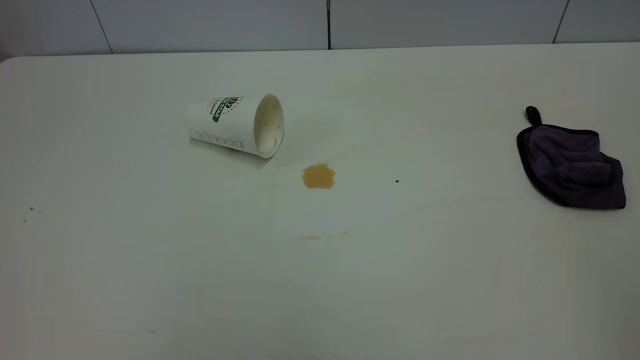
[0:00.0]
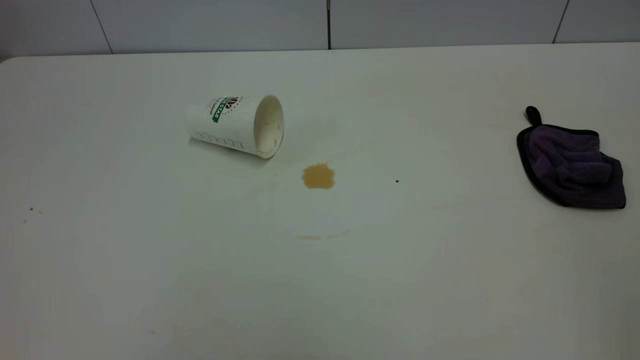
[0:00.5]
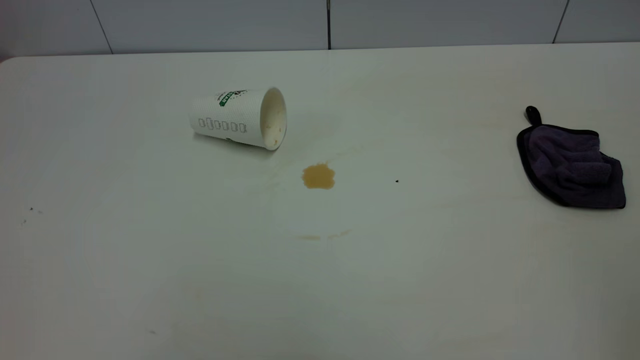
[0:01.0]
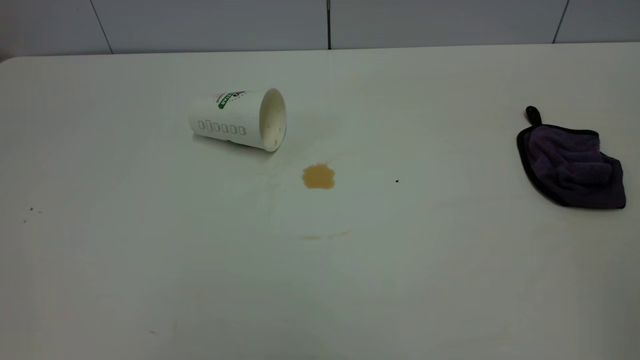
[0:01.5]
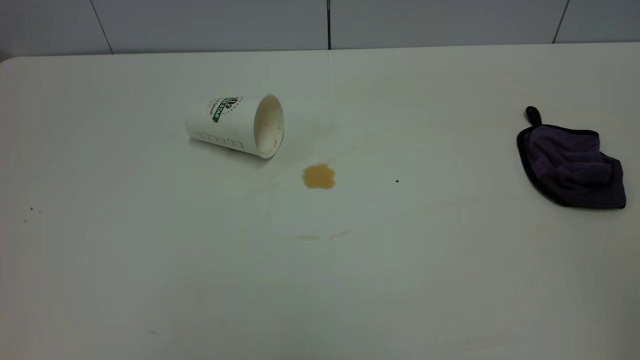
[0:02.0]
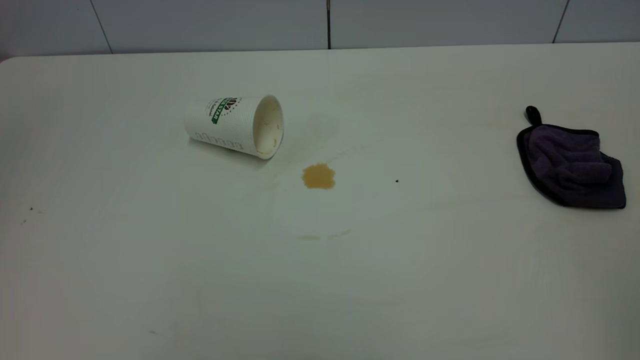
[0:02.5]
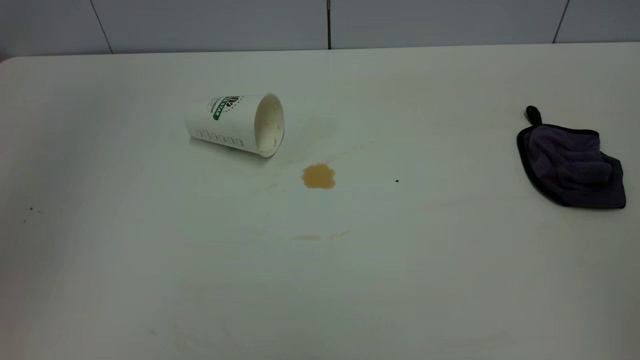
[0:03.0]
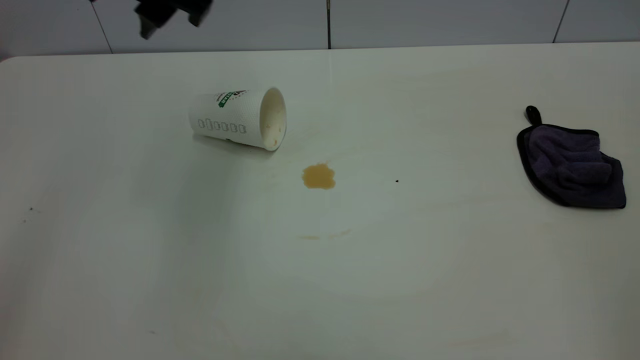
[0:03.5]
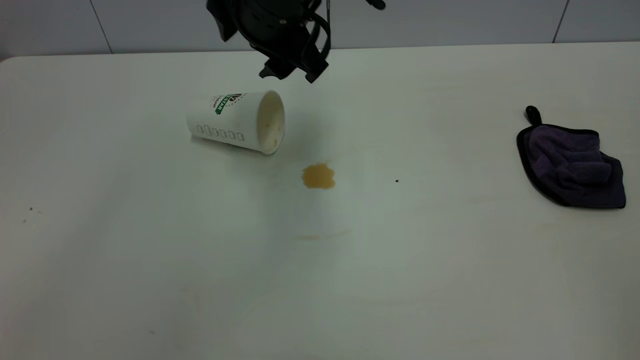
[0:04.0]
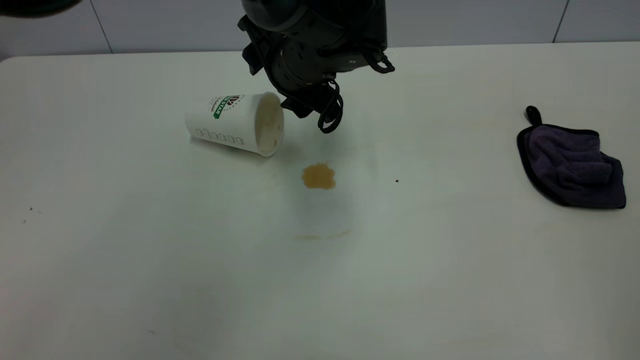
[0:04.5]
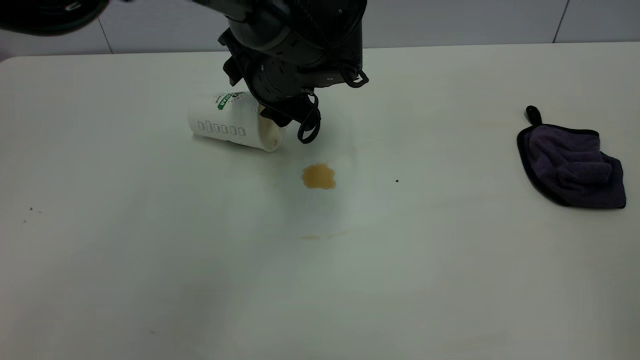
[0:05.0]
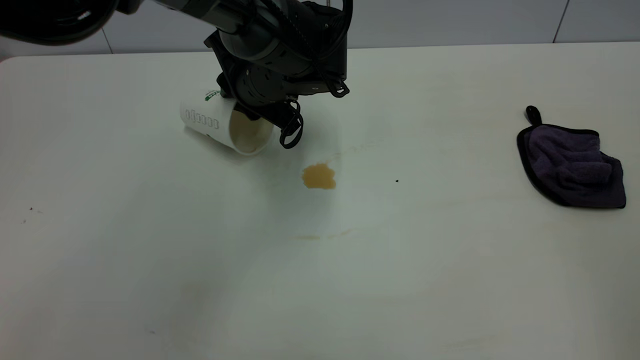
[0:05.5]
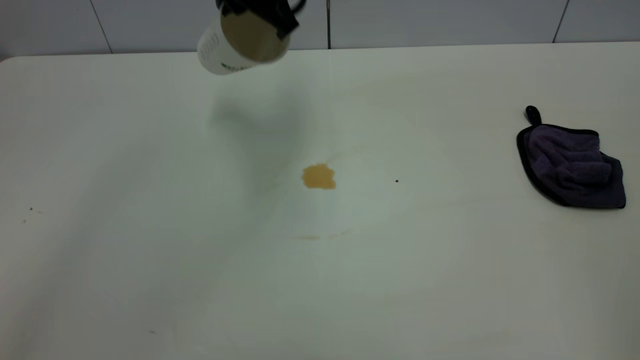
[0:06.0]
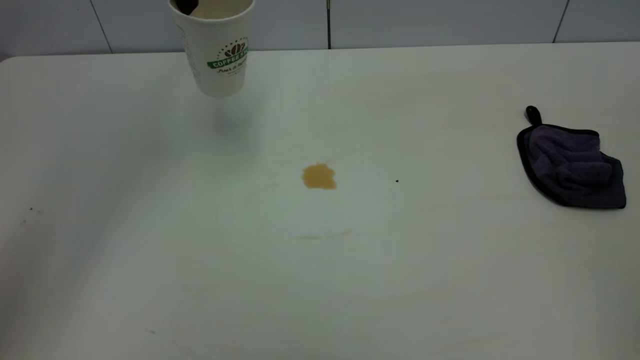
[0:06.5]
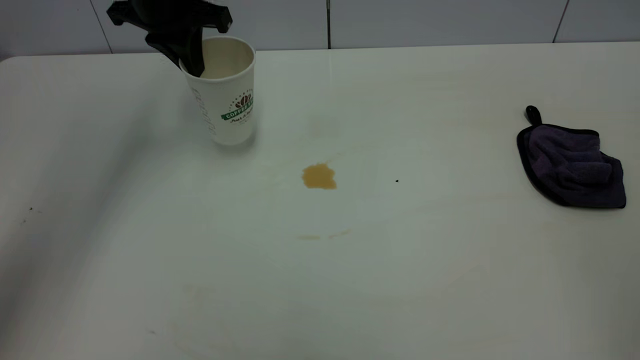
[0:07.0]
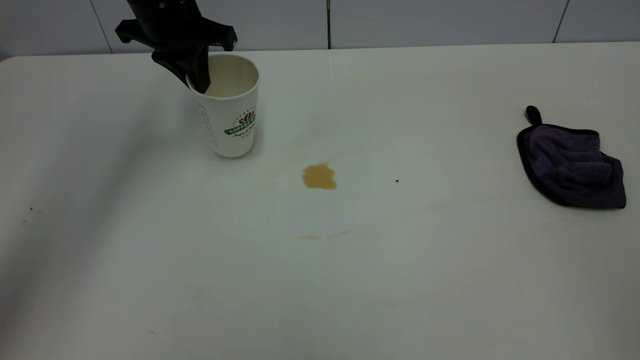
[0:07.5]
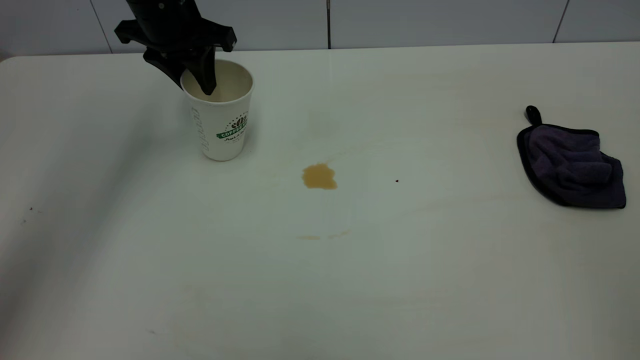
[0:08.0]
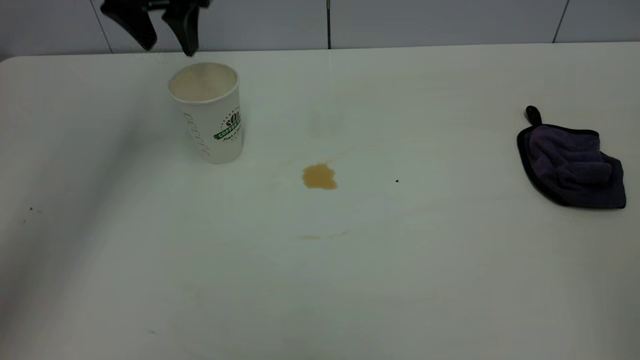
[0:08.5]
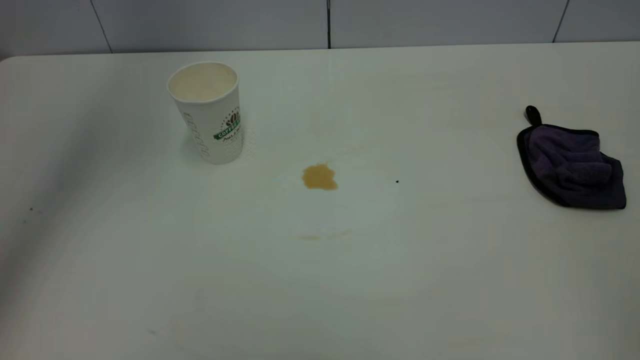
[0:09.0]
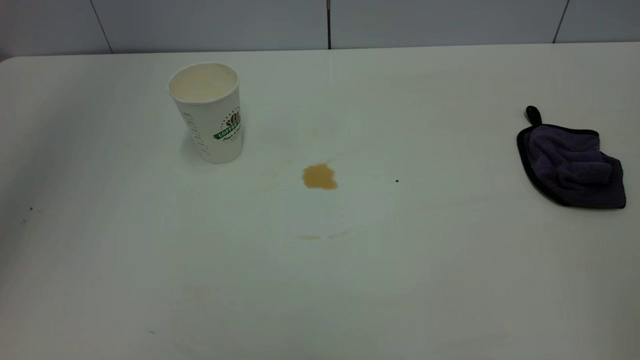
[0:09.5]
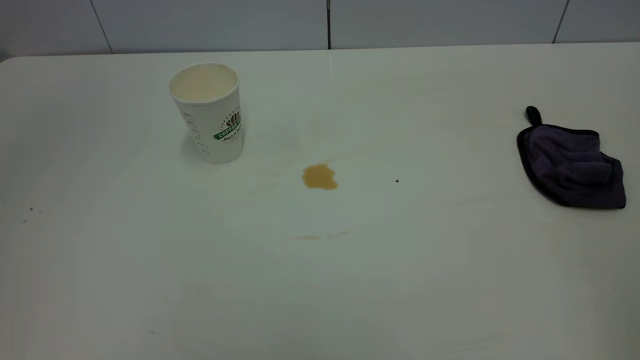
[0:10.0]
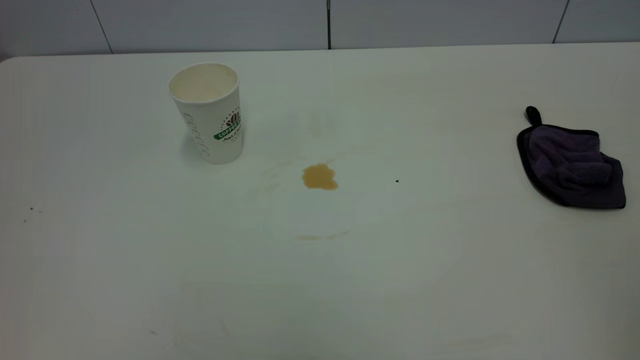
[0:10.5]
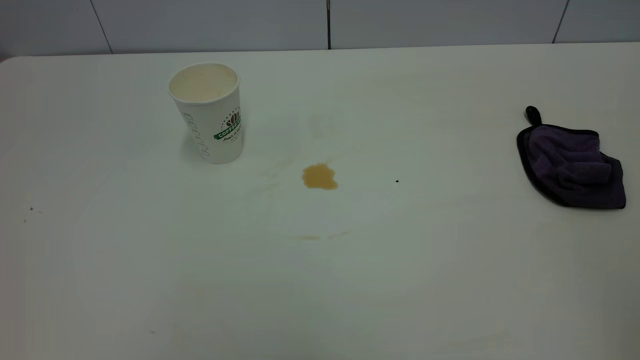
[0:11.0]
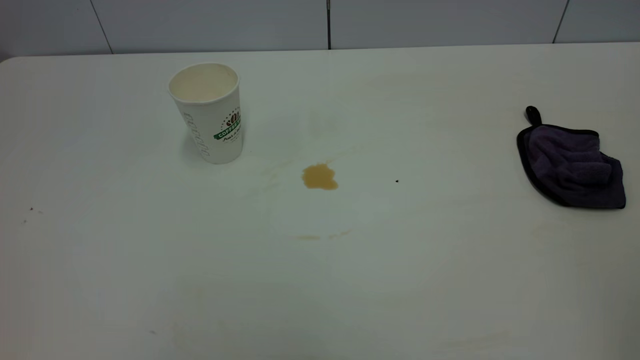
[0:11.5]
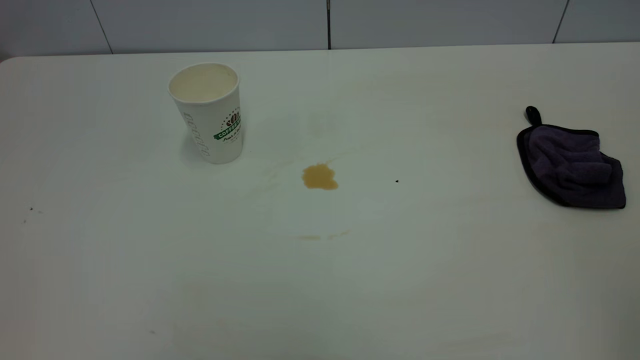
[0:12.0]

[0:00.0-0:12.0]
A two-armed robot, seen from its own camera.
Task of the whole recording: the left gripper pick up the fallen cup and place it upright, the right gripper grasp the purple rag and wipe the tea stain on the table, the right gripper put the purple rag back in its original position.
Step, 0:00.0 to 0:08.0: Stand the paper cup upright.
0:02.0 to 0:04.0: The left gripper moves forward, to the right and downward, approximately 50 cm, and opens up.
0:04.0 to 0:06.0: The left gripper travels downward and back again, roughly 10 cm each way, and closes.
0:06.0 to 0:08.0: The left gripper travels to the left and downward by some 15 cm, and opens its fingers.
0:08.0 to 0:10.0: The left gripper travels backward and upward by some 50 cm, and opens.

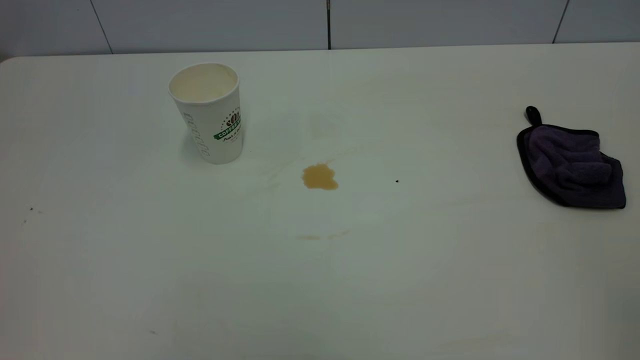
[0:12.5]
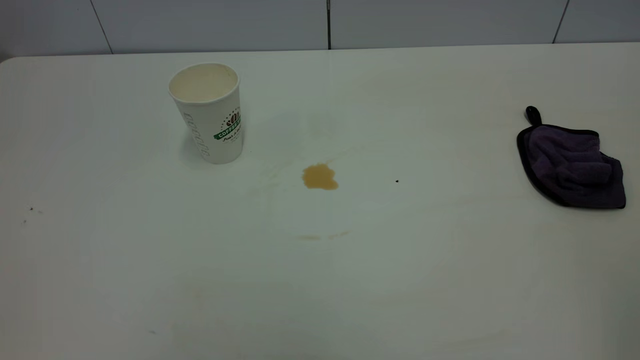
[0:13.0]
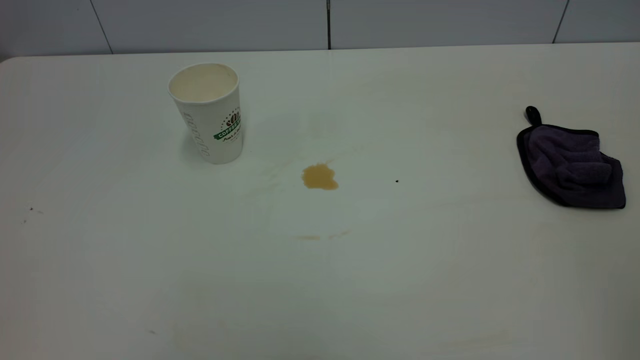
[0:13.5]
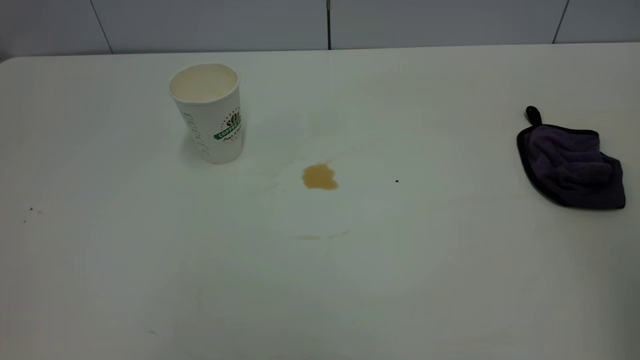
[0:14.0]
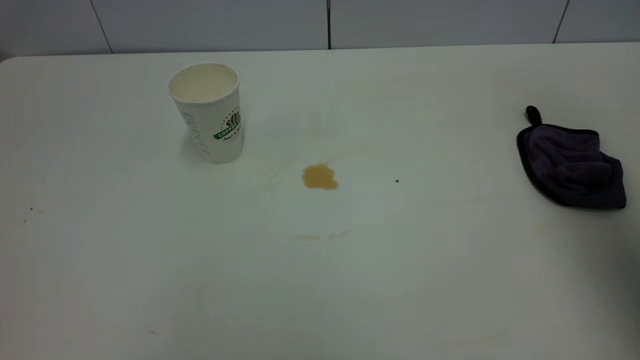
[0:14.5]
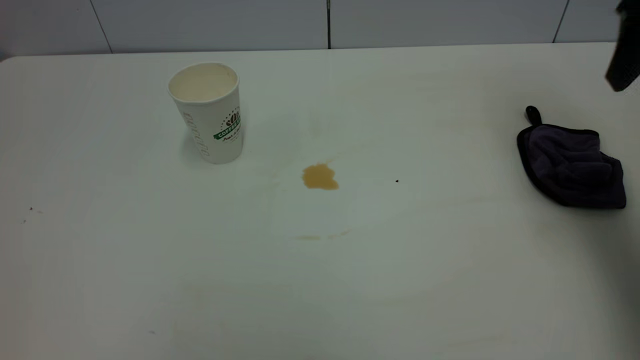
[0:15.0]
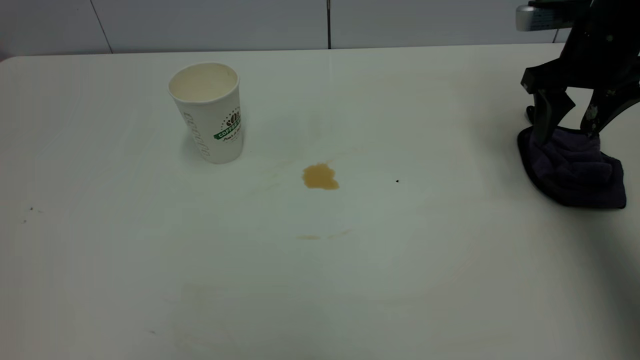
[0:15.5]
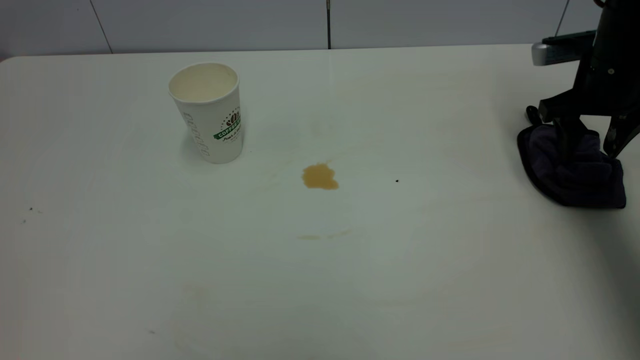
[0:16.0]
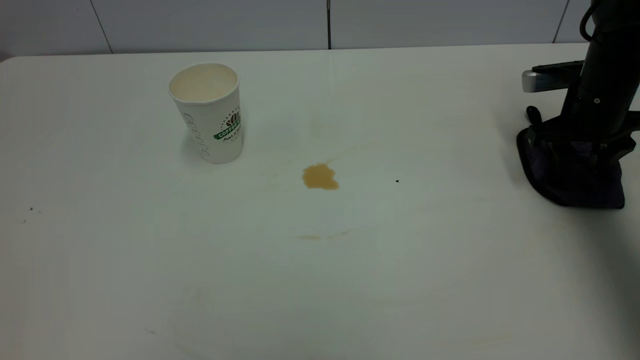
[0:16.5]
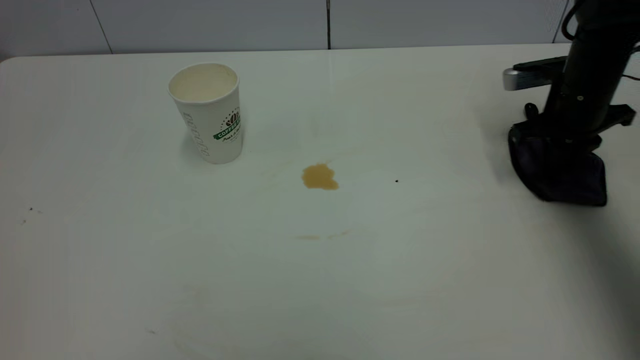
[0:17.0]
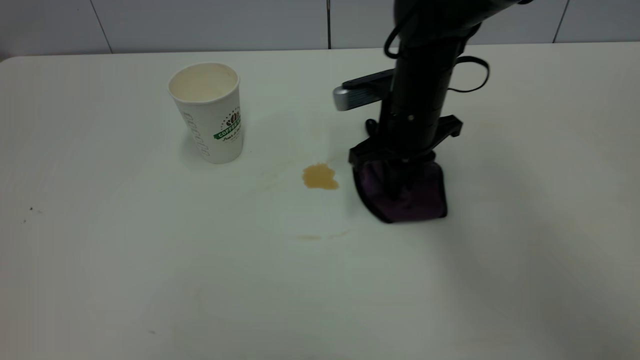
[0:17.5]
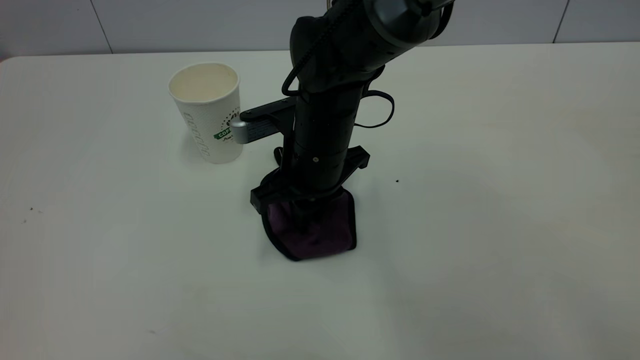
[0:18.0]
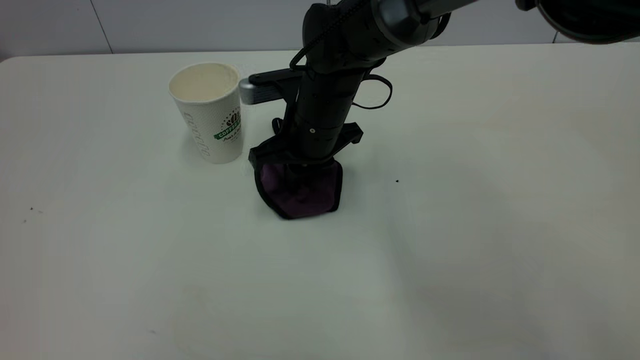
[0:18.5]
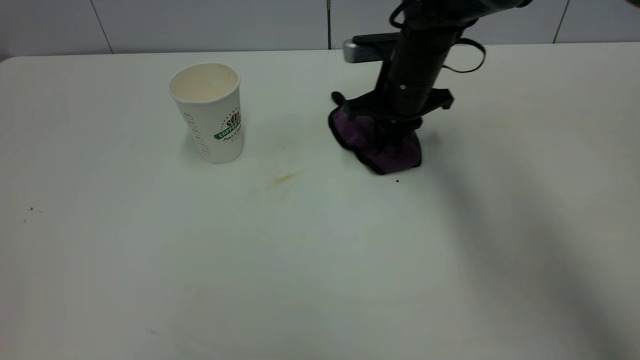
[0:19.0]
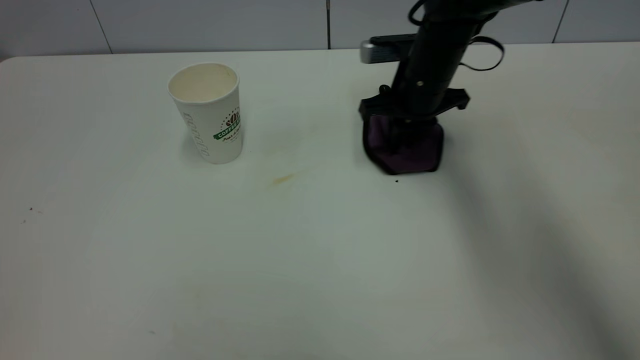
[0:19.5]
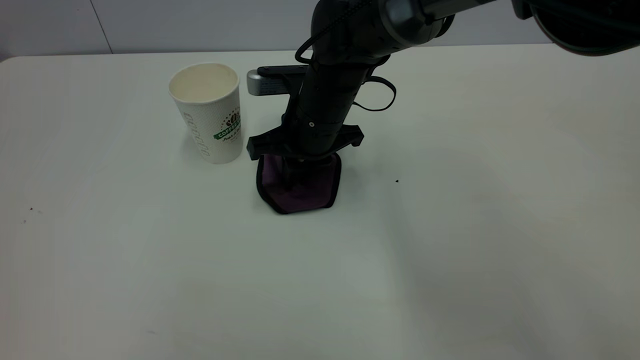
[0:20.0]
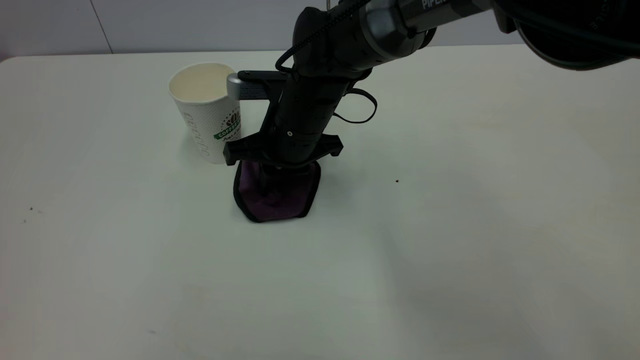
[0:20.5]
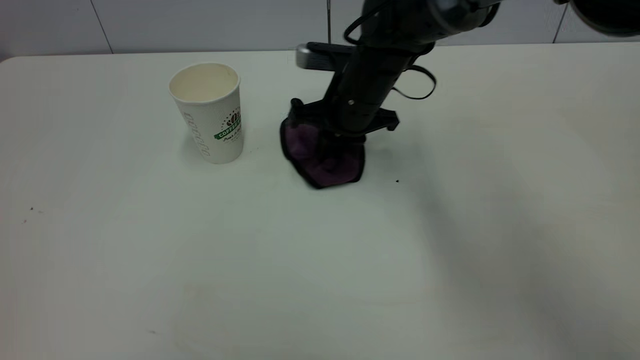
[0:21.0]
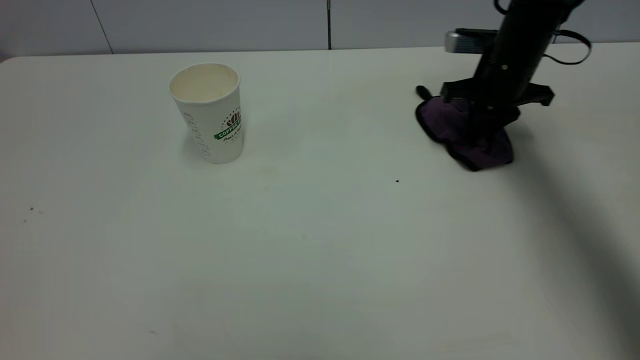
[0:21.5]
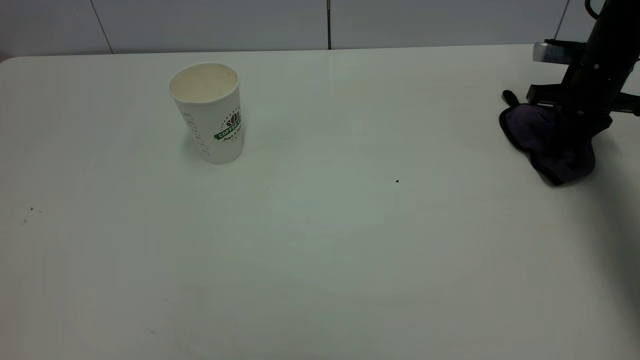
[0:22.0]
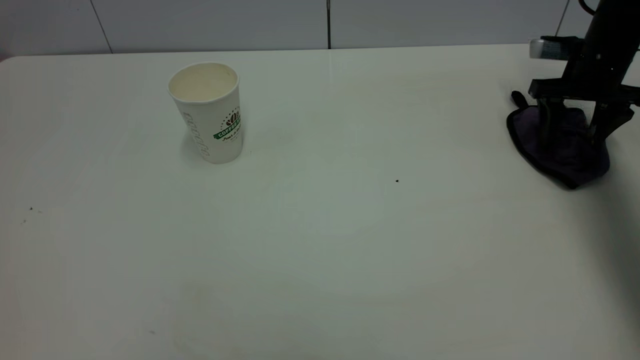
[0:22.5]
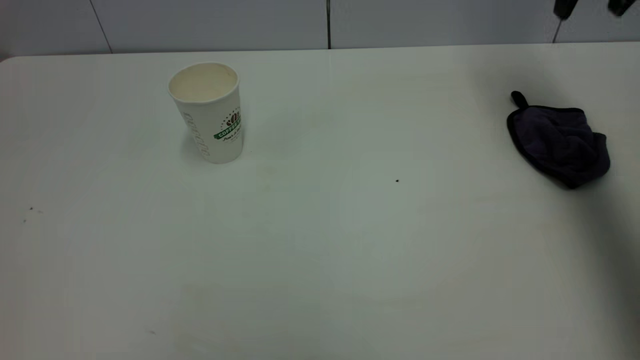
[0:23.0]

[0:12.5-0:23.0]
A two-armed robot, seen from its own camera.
Task of the whole recording: the left gripper pick up the fallen cup and place it upright, the right gripper grasp the purple rag and wipe the tea stain on the table, the right gripper put the purple rag back in its original position.
Step, 0:12.5 to 0:22.5: Wipe the stains off the table with a rag.
0:12.5 to 0:14.5: The right gripper goes roughly 25 cm forward, and opens its fingers.
0:14.5 to 0:16.5: The right gripper goes about 35 cm downward and forward.
0:16.5 to 0:19.0: The right gripper shifts about 20 cm to the left, and closes.
0:19.0 to 0:21.0: The right gripper goes approximately 5 cm to the left.
0:21.0 to 0:23.0: The right gripper travels to the right and upward by about 30 cm, and opens its fingers.
